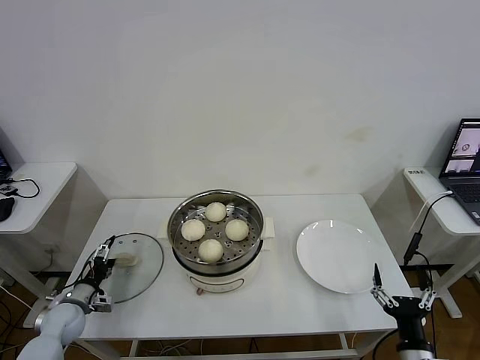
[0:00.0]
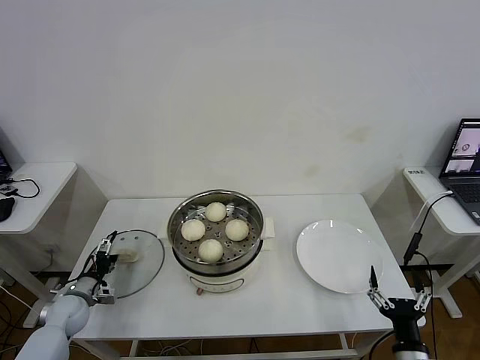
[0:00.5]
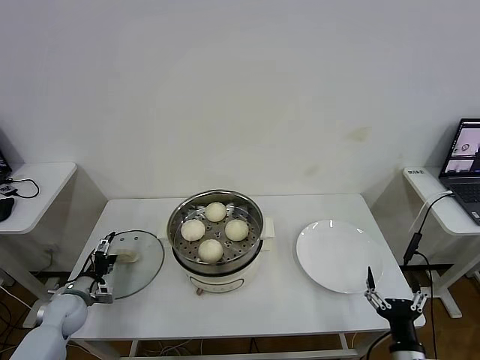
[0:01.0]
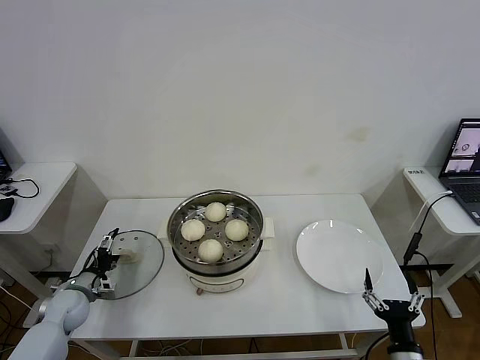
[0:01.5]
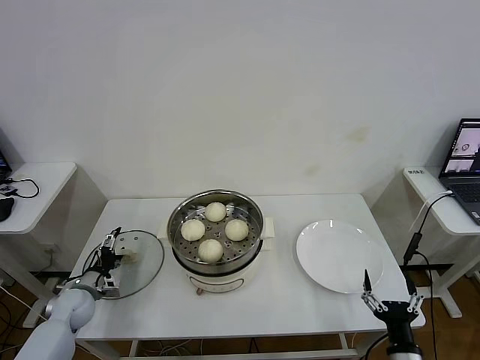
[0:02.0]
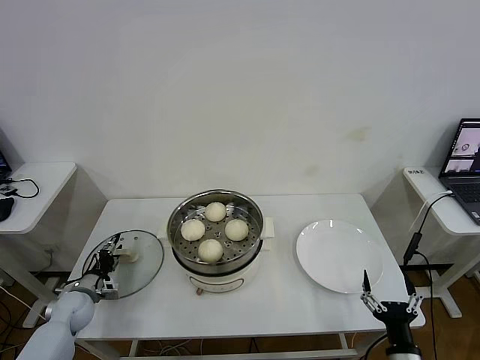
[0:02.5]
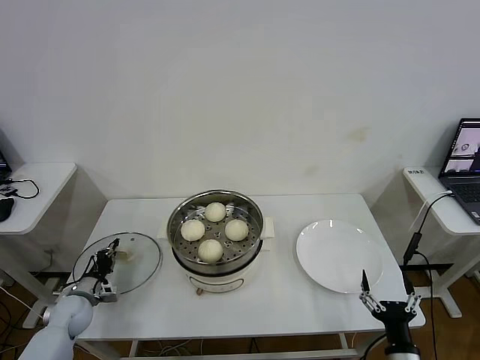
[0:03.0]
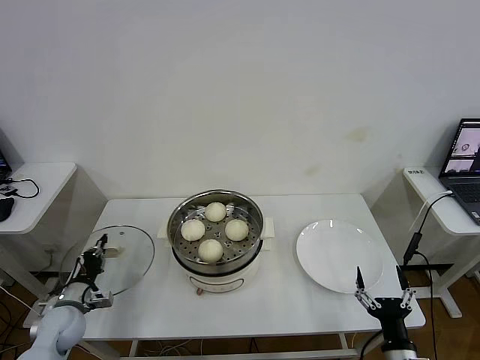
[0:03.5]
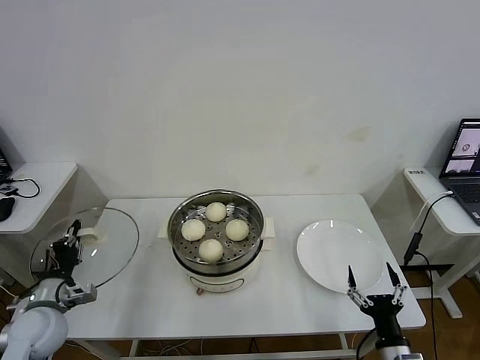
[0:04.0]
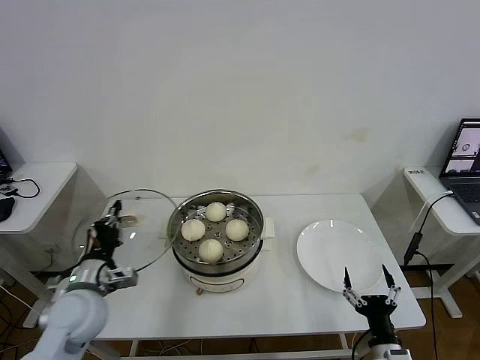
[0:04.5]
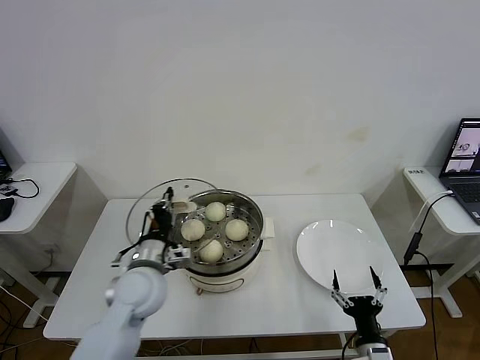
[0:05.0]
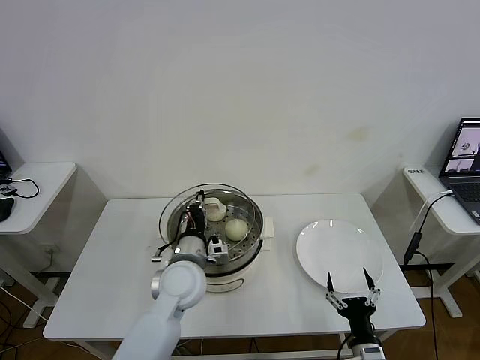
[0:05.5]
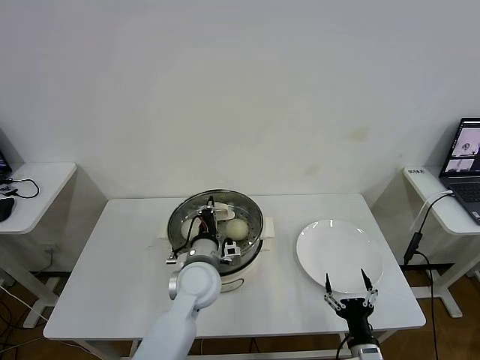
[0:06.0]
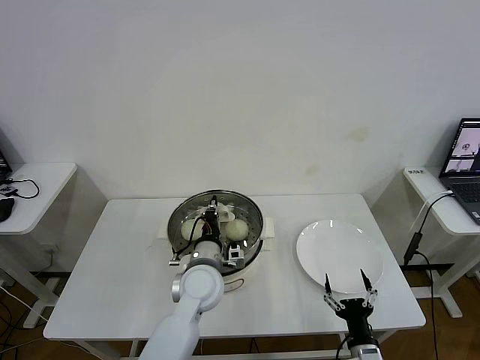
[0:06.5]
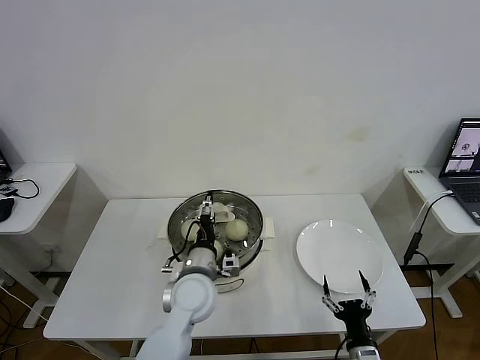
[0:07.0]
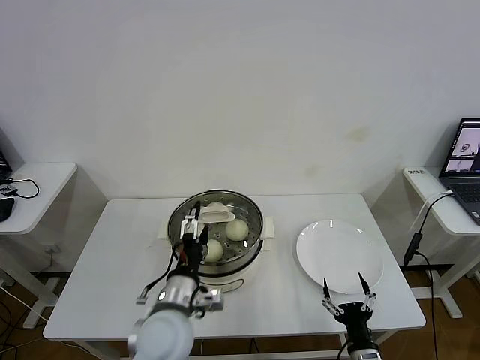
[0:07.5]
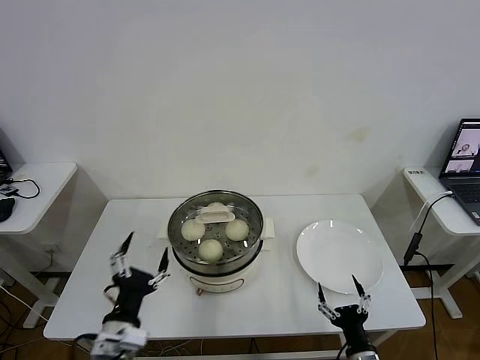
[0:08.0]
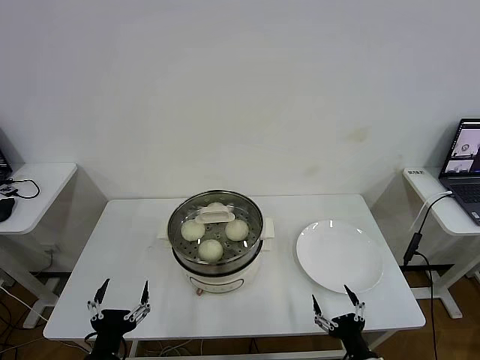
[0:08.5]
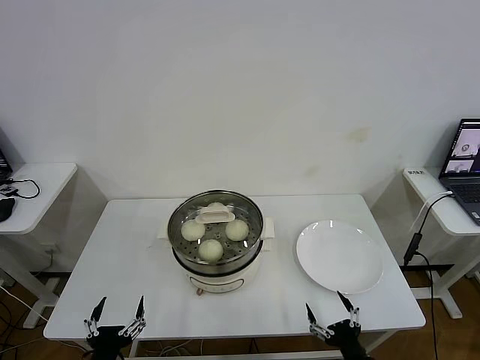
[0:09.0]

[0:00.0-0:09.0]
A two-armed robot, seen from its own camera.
Task of the whole recording: take steamed baozi put them in steamer then cover it.
Step, 0:00.0 to 0:03.0: Grasp the pot lid with left gripper.
Step, 0:03.5 to 0:07.0: Place the pot lid on the steamer with left gripper.
0:00.0 to 0:02.0: The grippers make only small movements.
0:02.0 to 0:04.5: The left gripper heads upward, to the right and backward, covering about 25 cm, and closes up.
0:04.5 to 0:07.0: The left gripper moves to the right, approximately 20 cm, and opens its fingers.
0:07.0 to 0:09.0: The left gripper travels backward and to the left by approximately 30 cm. The right gripper moves roughly 5 cm.
